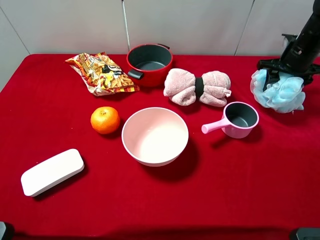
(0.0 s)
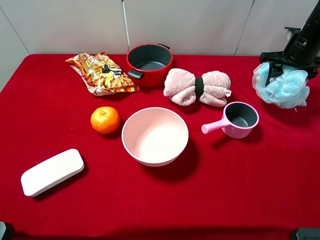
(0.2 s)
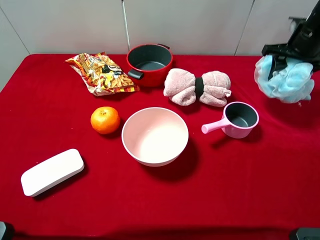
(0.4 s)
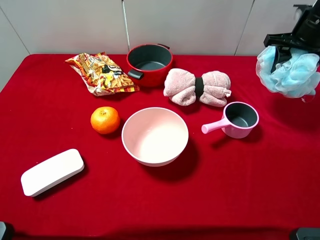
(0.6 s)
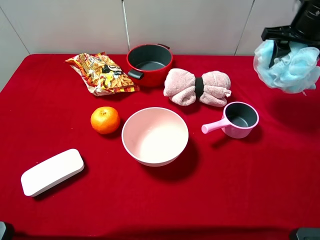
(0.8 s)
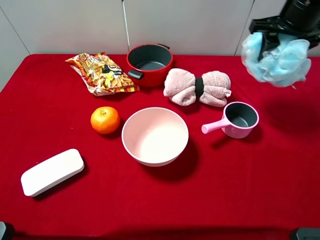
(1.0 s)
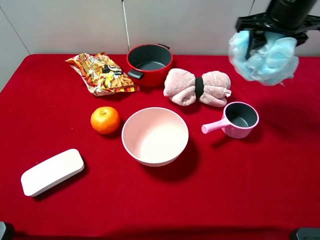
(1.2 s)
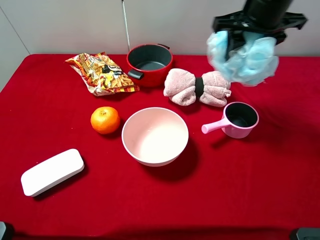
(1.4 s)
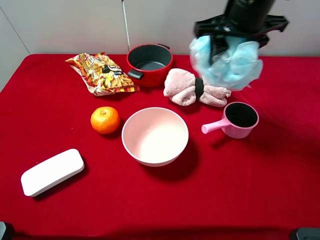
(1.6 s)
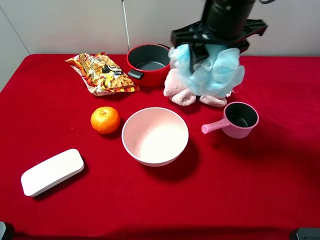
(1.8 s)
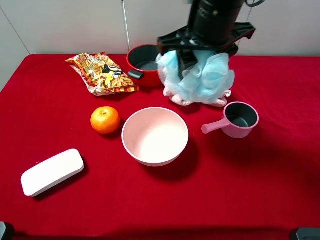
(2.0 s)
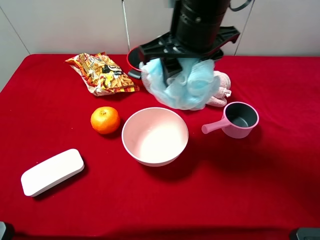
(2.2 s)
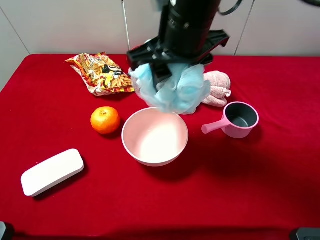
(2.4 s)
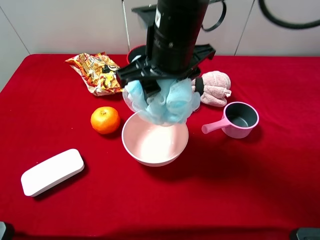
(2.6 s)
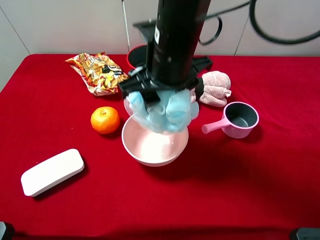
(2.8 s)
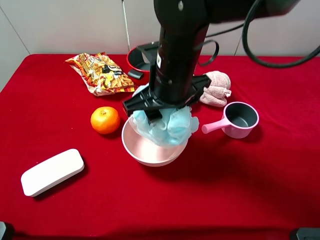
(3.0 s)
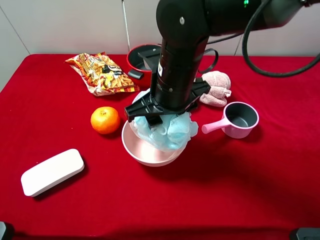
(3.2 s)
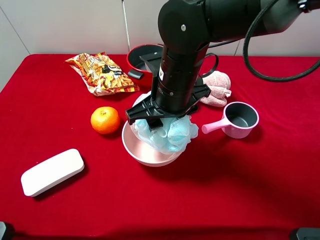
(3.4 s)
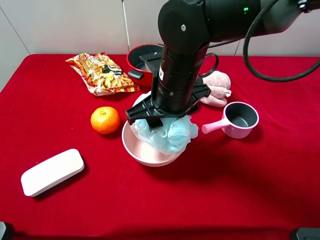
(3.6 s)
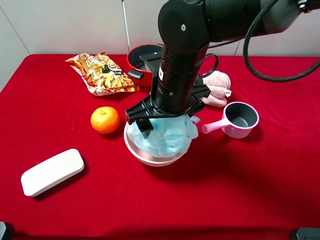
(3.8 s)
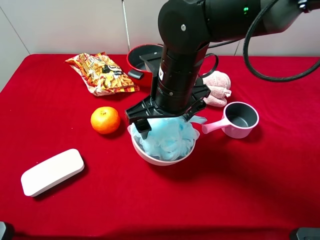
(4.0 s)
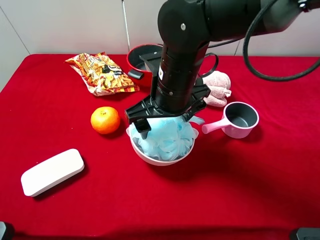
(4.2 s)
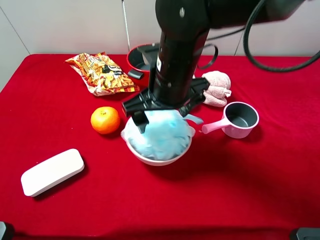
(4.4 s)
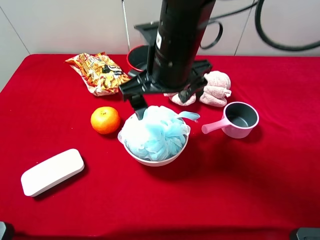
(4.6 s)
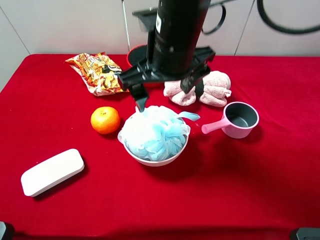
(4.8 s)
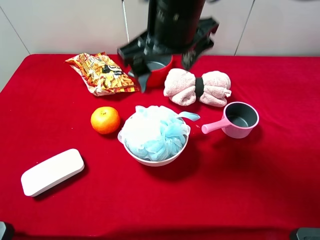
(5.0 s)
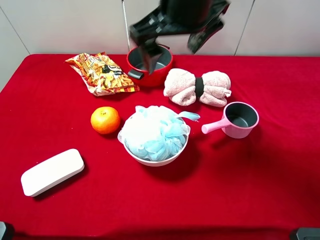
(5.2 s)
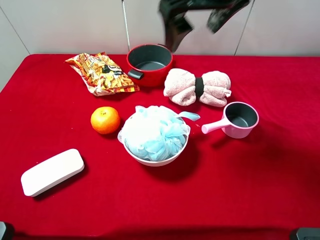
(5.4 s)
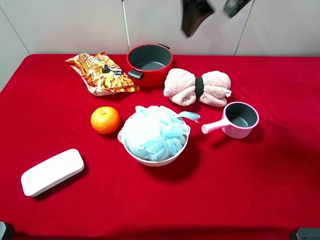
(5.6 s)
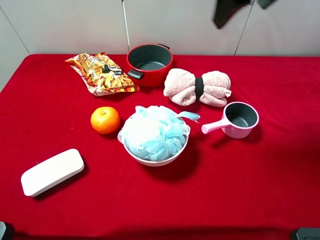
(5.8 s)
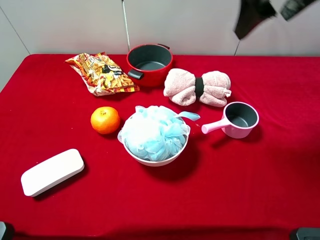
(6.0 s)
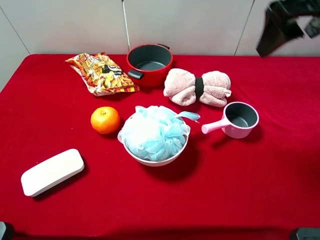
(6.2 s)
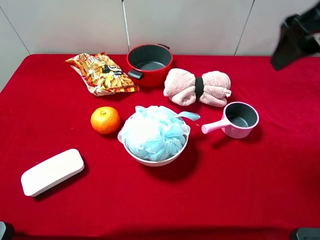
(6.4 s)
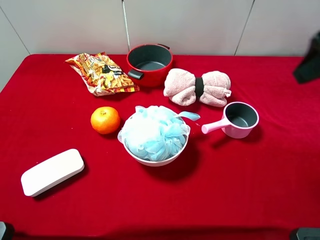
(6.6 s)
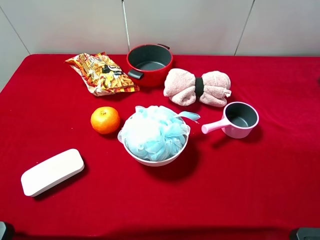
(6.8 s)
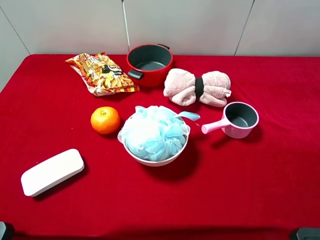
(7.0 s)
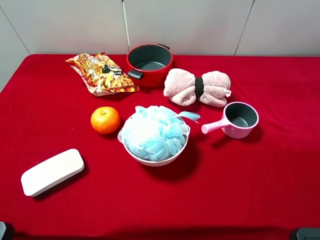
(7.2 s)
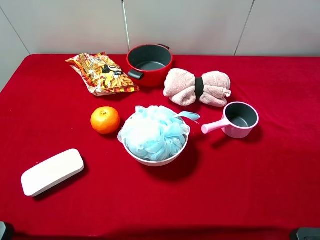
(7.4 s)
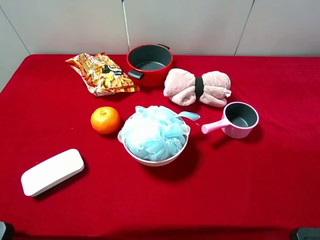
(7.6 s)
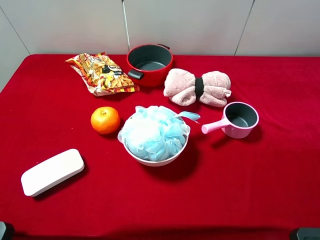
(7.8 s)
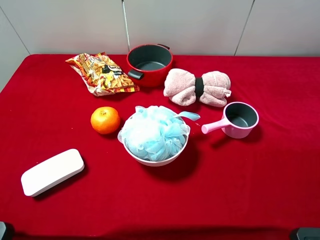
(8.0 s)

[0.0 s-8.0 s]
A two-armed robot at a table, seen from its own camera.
Task of the whole recording: pick up an item with a gripper and place it in a random container on the desktop.
0.0 to 1.6 s: The right gripper is displaced to the left, upward and backward by approximately 25 cm.
1.6 to 3.2 s: The right gripper heads to the left, downward and backward, covering some 15 cm.
3.2 to 4.8 s: The right gripper travels upward by some 5 cm, and opens its fingers.
4.8 to 6.4 s: The right gripper is displaced to the right and upward by approximately 20 cm.
6.4 to 8.0 s: The right gripper goes some 20 cm backward.

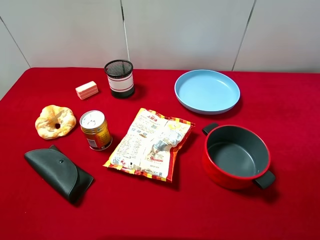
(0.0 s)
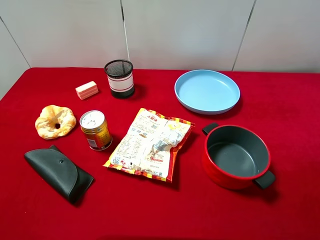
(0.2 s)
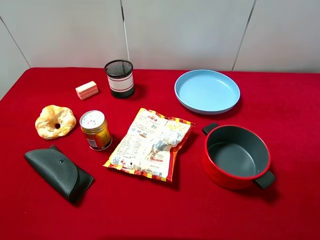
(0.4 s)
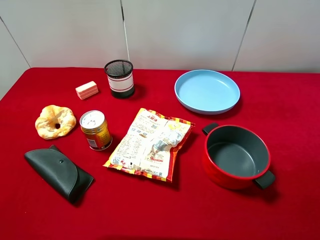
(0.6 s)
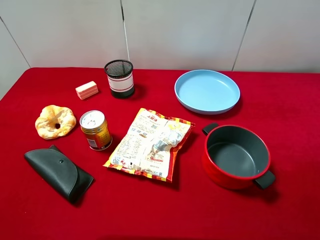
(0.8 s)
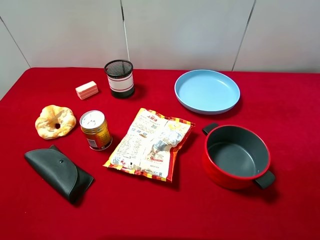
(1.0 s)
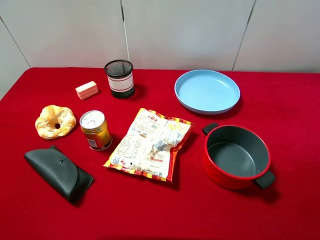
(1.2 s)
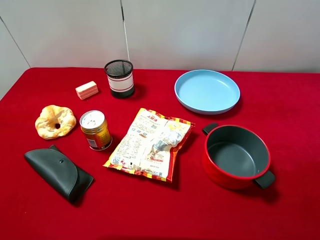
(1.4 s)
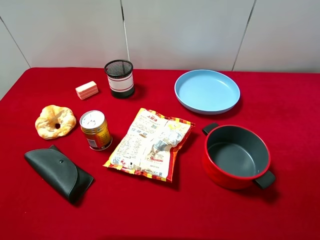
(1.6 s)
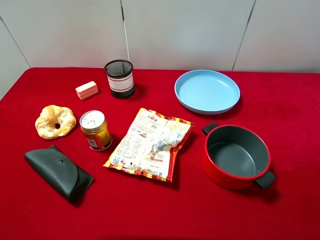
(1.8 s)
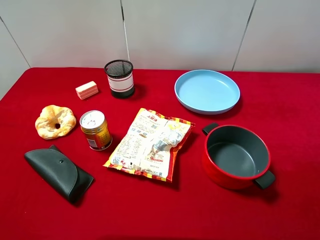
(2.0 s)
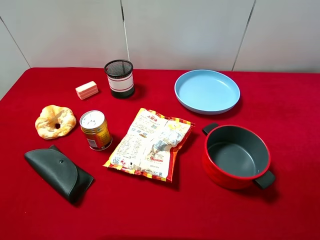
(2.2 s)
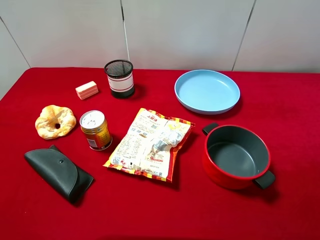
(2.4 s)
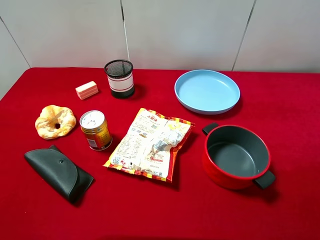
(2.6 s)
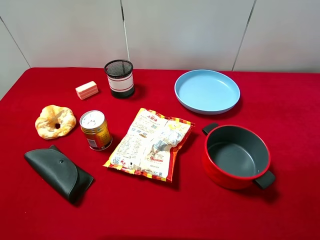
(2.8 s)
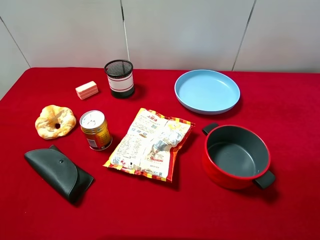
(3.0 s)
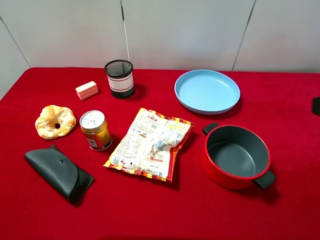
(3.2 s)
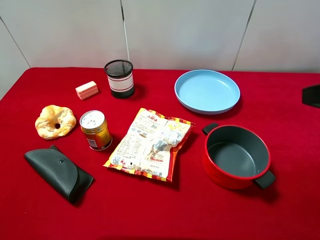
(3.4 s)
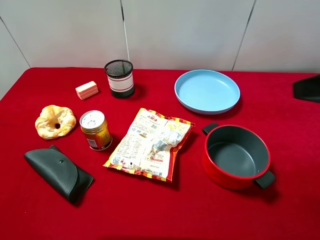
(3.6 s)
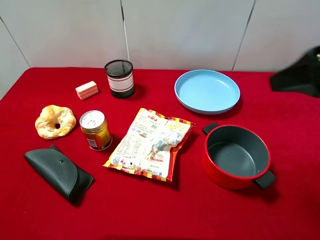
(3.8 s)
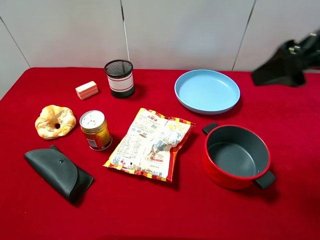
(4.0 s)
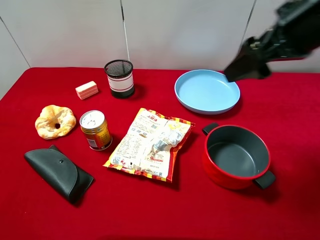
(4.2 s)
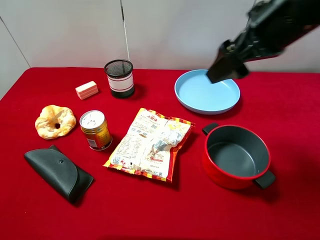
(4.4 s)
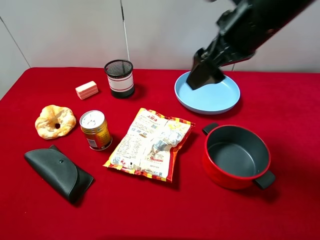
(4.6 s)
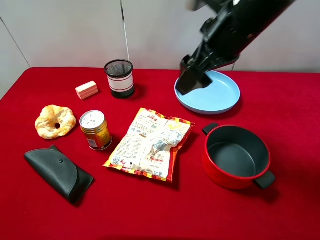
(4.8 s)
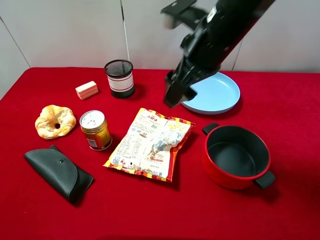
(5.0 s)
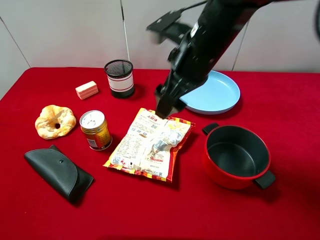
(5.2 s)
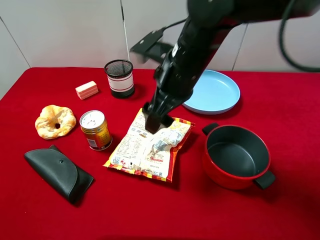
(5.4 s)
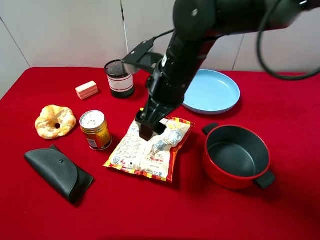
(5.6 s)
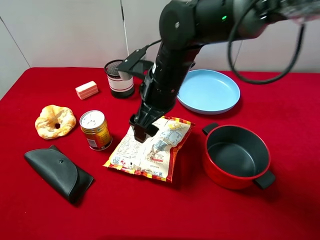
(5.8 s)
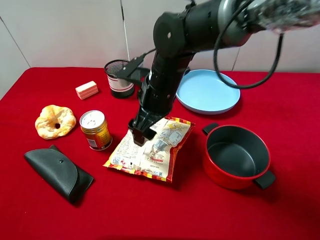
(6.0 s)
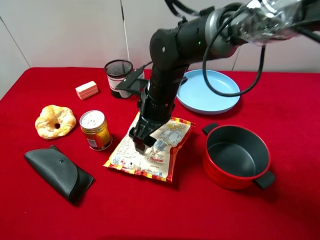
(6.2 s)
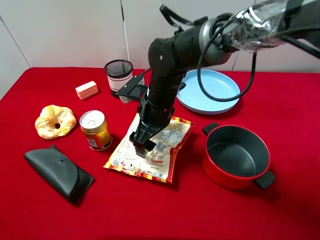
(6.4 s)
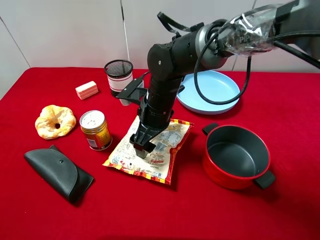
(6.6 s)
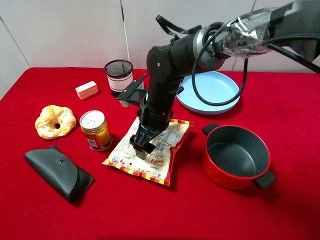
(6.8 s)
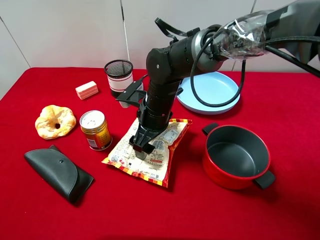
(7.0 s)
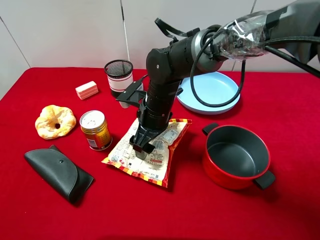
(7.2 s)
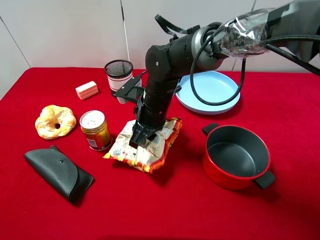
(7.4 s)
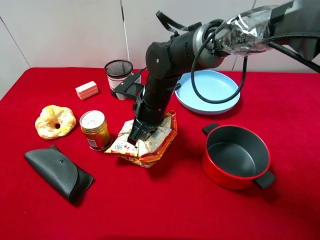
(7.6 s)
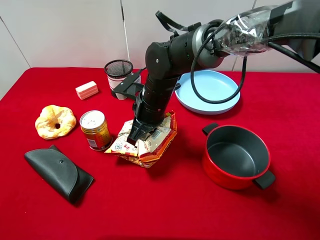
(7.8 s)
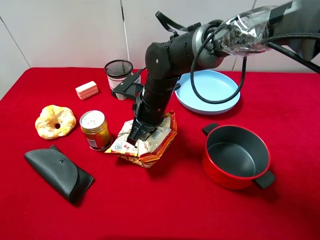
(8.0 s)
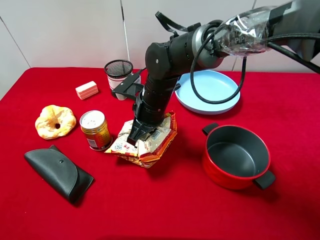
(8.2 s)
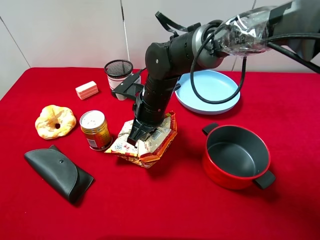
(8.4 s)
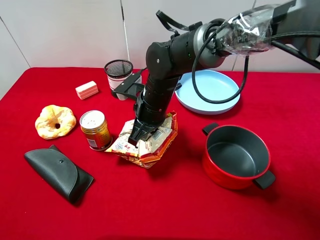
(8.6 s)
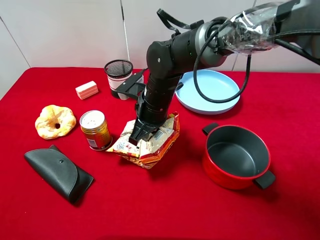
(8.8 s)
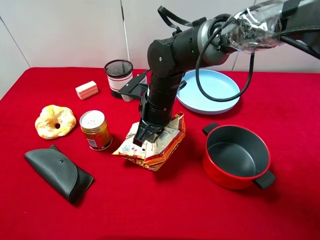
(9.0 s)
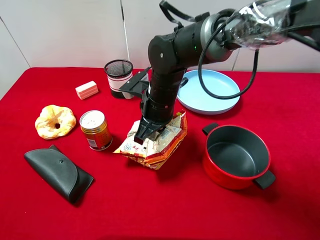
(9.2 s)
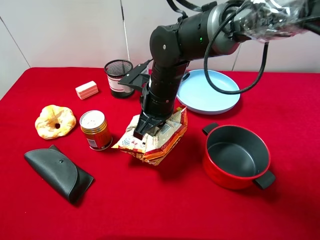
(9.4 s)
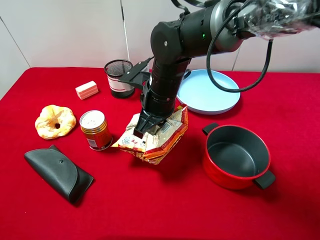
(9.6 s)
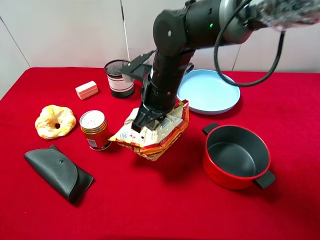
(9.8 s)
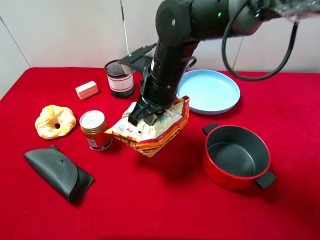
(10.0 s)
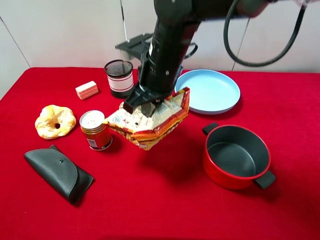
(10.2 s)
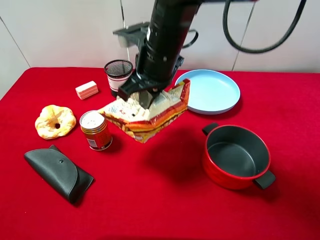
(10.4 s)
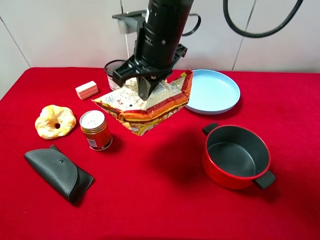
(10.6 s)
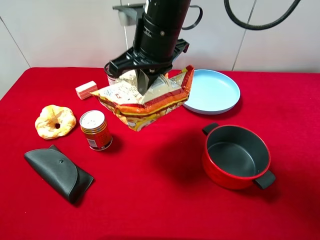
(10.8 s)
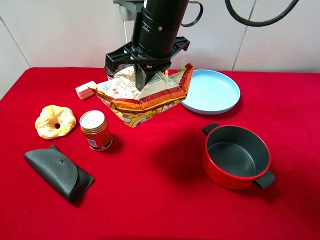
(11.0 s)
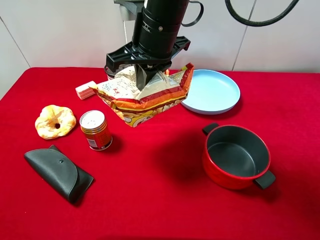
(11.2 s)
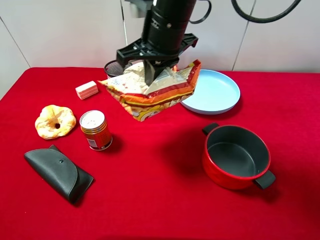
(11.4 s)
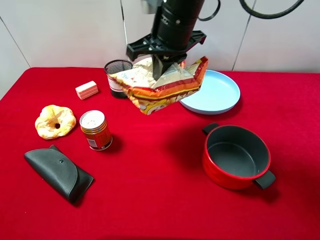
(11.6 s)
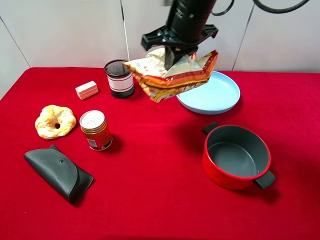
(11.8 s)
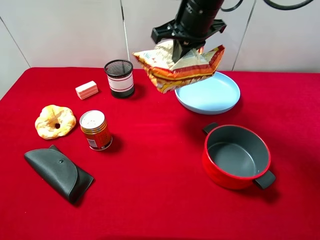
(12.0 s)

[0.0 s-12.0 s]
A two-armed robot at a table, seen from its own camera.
Task of the whole recording: pick up an item with a gripper and place it in a random container on the desktop.
0.0 to 1.6 s: Neither gripper changes place.
3.0 to 4.4 s: The right gripper moves forward and to the left, approximately 20 cm.
4.4 to 6.0 s: The right gripper is displaced to the left and downward by roughly 20 cm.
6.0 to 7.6 s: The right gripper goes about 5 cm downward, and closes.
7.6 to 9.0 s: The grippers make only small movements.
9.0 to 10.4 s: The right gripper travels upward by roughly 10 cm.
10.4 to 12.0 s: The right gripper moves forward and to the right, approximately 10 cm.

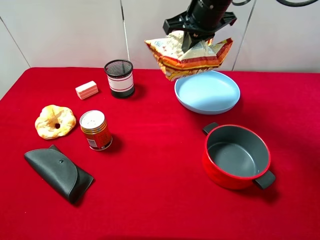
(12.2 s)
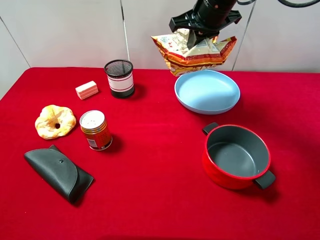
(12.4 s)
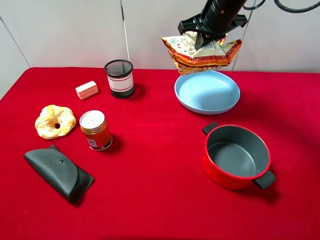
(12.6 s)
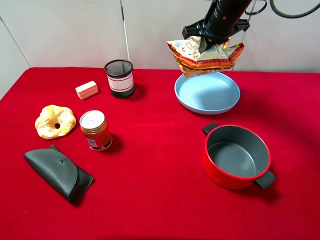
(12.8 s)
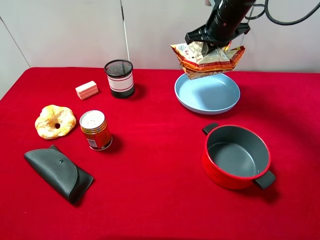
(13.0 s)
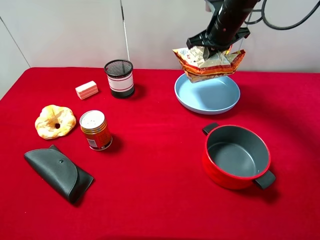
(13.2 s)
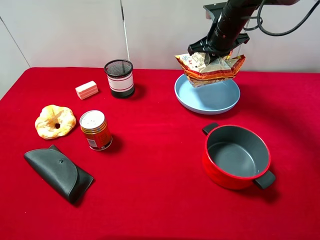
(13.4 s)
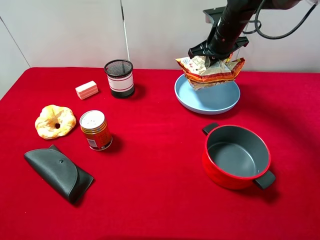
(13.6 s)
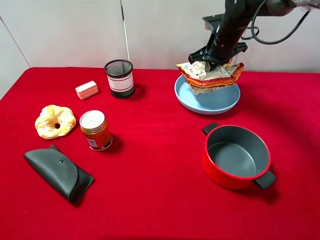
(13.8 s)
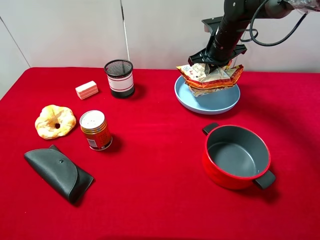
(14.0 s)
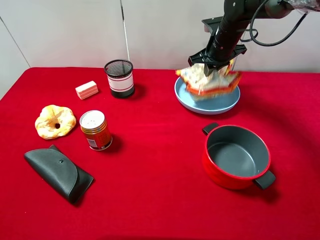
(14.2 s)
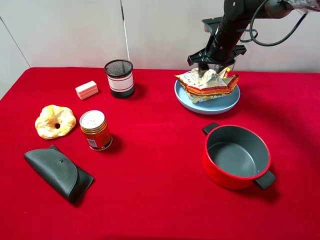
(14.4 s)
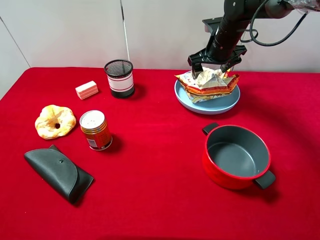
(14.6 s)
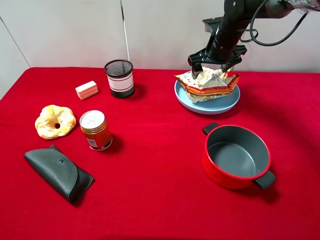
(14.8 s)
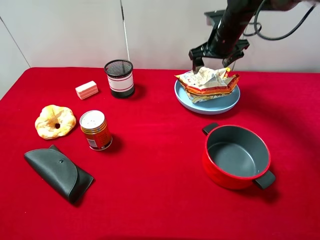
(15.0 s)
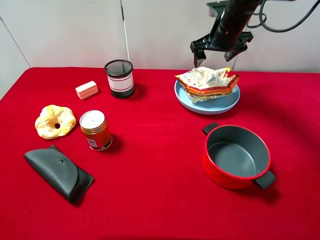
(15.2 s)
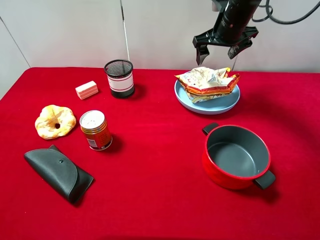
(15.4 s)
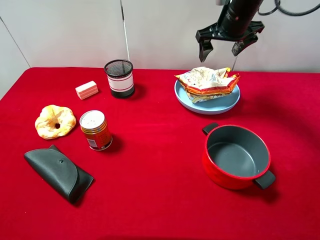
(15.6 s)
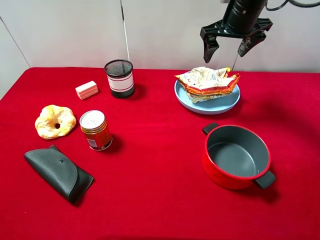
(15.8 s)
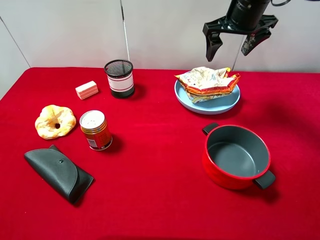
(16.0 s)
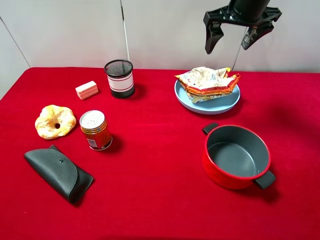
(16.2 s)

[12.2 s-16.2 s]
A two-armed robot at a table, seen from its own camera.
Task of the whole recording: pick up an item with a gripper and place it in a random container on the desktop.
12.2 to 13.6 s: The right gripper is displaced downward, forward and to the right by some 15 cm.
13.6 to 14.8 s: The right gripper opens up.
14.8 to 16.2 s: The right gripper is displaced upward and backward by some 15 cm.
